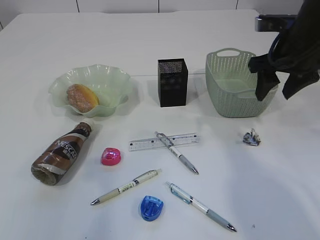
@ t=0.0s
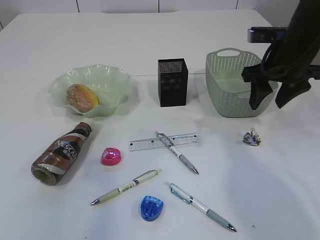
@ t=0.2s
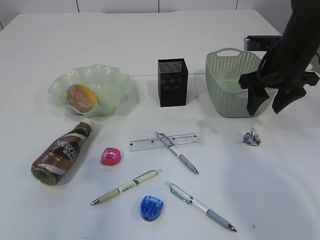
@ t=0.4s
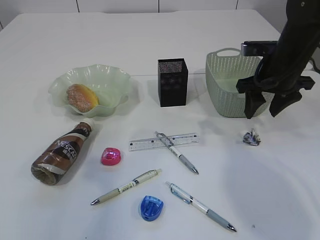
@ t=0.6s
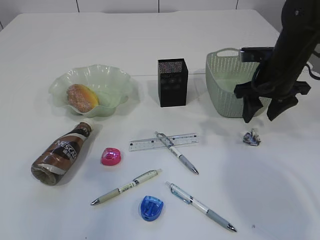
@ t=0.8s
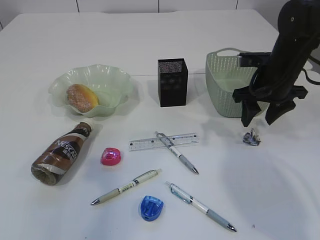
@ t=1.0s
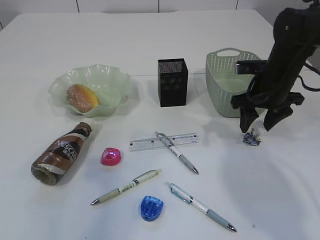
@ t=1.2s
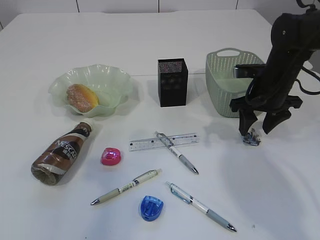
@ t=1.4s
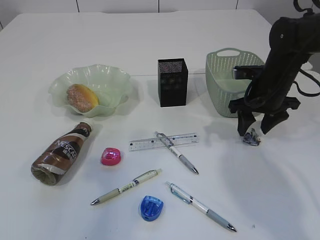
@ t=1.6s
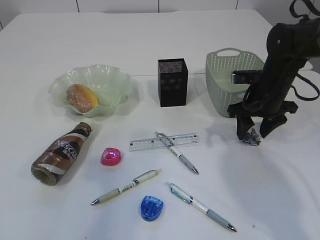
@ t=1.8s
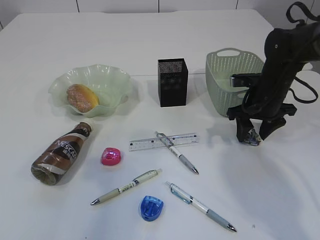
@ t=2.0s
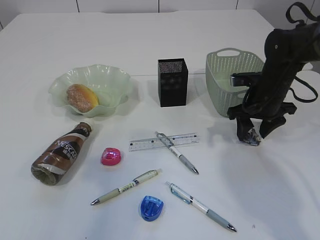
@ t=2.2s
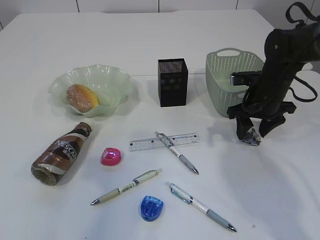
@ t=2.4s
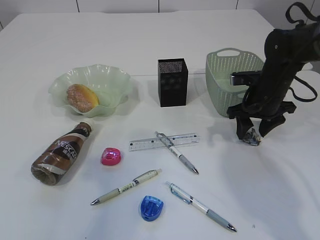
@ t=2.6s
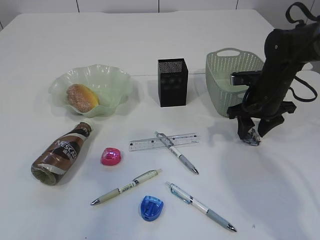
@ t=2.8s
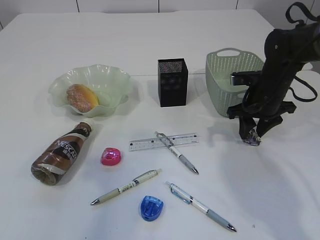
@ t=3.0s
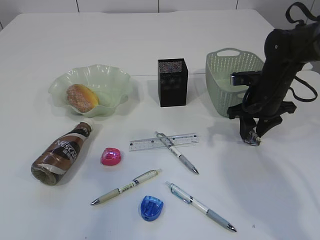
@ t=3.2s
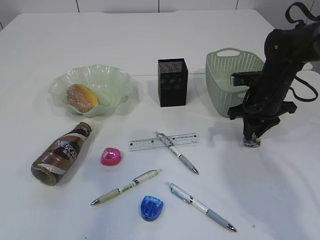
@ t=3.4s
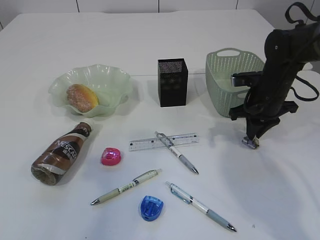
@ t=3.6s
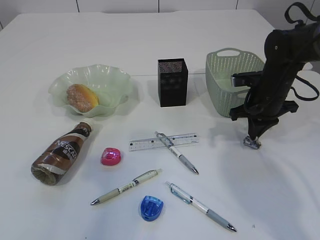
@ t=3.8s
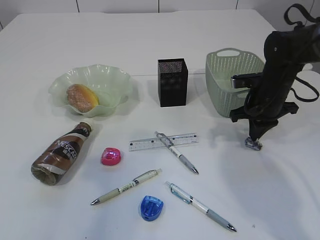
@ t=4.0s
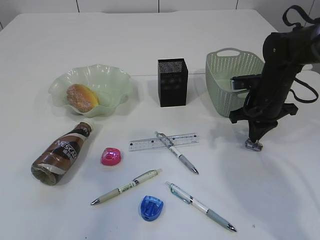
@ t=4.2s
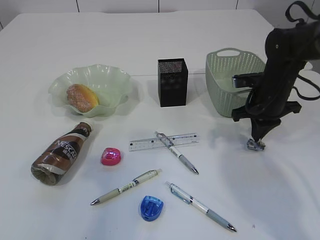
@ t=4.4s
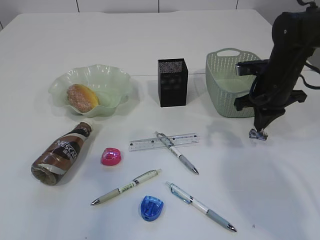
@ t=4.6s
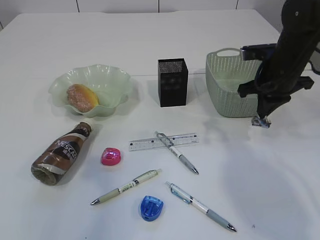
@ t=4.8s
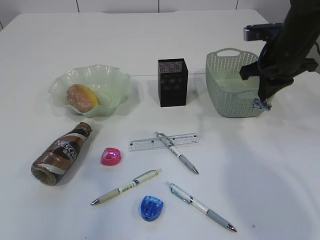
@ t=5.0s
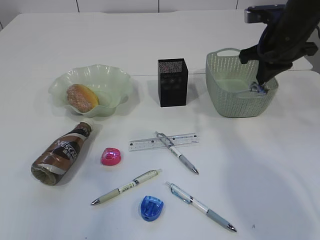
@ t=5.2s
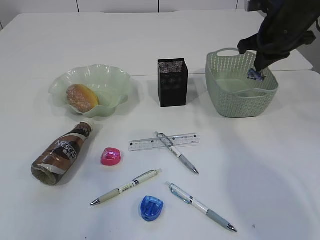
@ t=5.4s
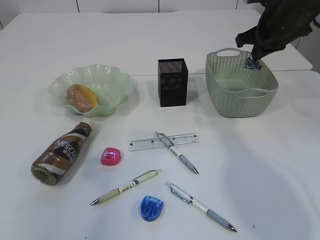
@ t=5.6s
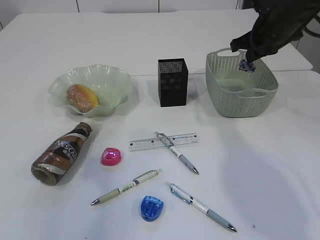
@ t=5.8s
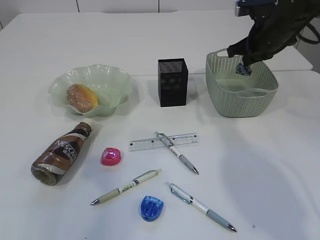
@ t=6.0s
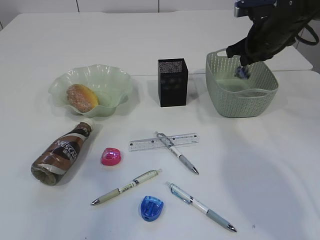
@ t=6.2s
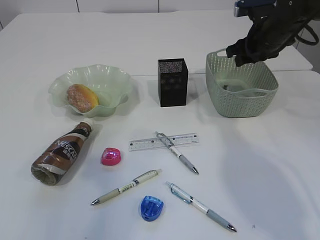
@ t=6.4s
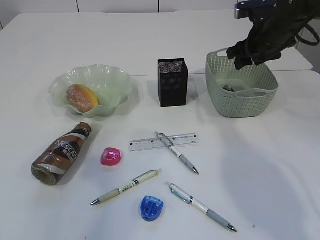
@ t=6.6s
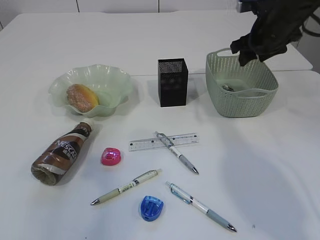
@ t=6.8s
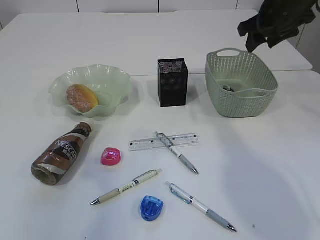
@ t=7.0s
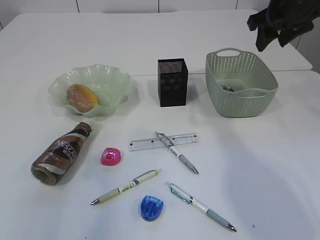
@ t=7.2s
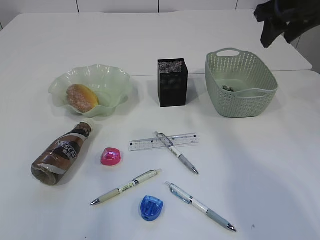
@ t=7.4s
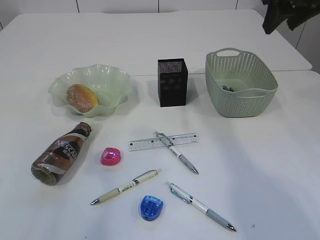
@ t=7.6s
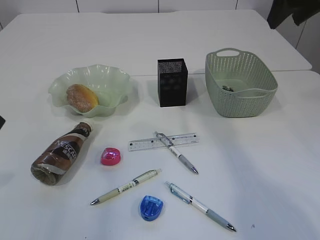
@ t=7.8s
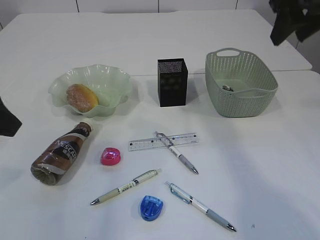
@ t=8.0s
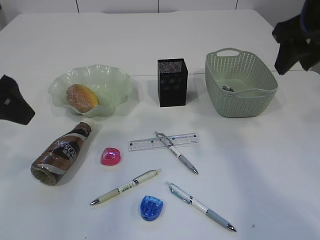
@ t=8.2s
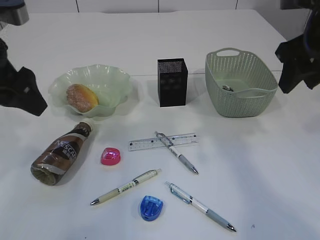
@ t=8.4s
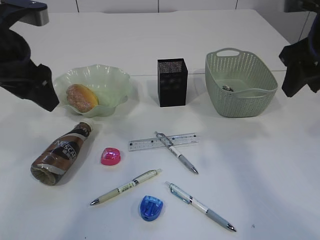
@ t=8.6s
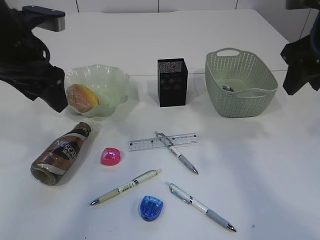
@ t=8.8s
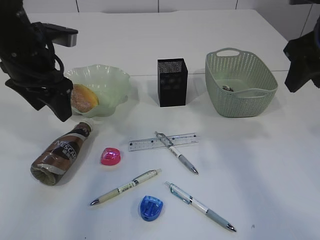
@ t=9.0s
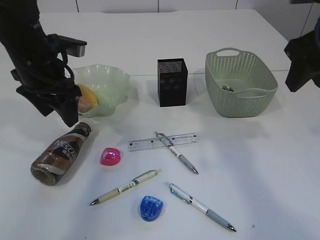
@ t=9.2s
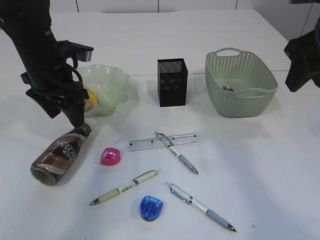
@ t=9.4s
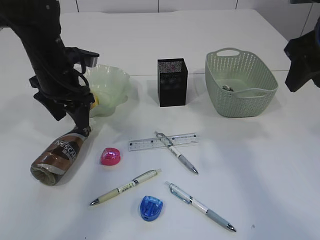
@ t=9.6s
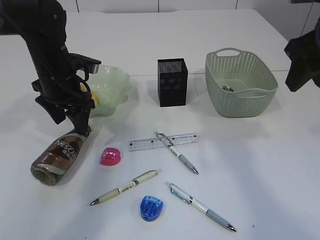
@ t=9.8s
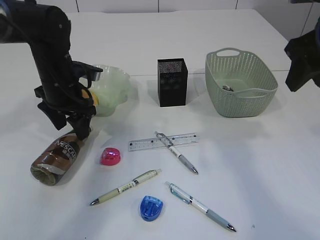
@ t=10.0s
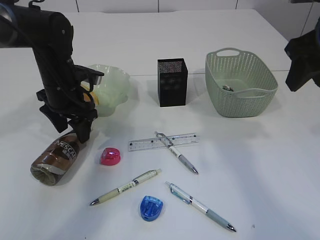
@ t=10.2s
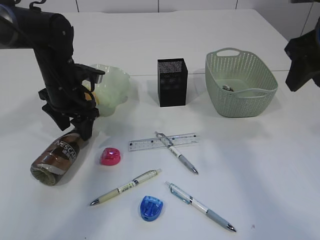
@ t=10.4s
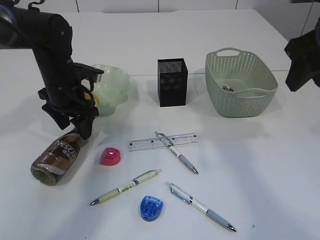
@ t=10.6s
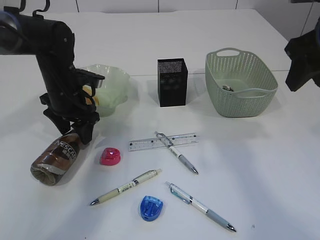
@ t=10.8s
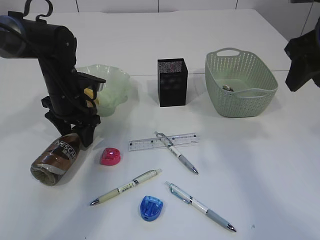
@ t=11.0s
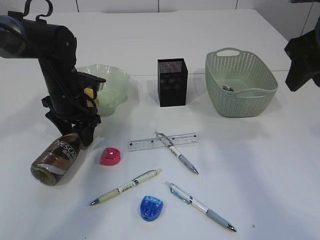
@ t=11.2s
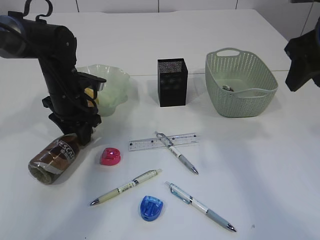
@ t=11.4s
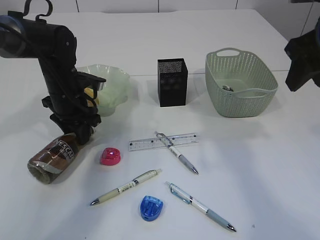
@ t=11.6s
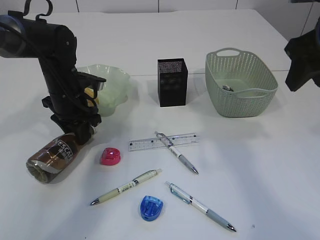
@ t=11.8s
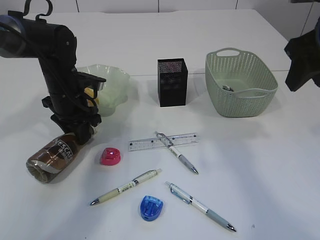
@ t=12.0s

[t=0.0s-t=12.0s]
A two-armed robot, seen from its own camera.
Step, t=0.0s to t=4.8s: Pick up the waste paper.
Step, t=5.0s to t=6.6s: Place the waste paper in the basket.
t=0.0s to t=1.6s: The right gripper heads downward, covering some 10 cm.
t=1.6s to t=3.0s: The grippers move only a little.
t=3.0s to t=4.4s: The right gripper closes its fingers.
t=4.4s to t=6.0s: The right gripper shifts roughly 10 cm upward and forward.
t=6.0s to t=7.6s: The right gripper goes roughly 15 cm upward and backward, and opens.
t=7.6s to t=9.0s: The right gripper is displaced backward by approximately 10 cm; the left gripper travels forward and downward by about 20 cm.
t=9.0s to t=10.4s: The left gripper is displaced downward and forward by roughly 10 cm.
t=10.4s to t=12.0s: The left gripper closes.

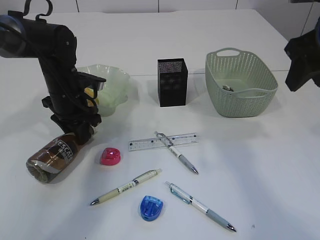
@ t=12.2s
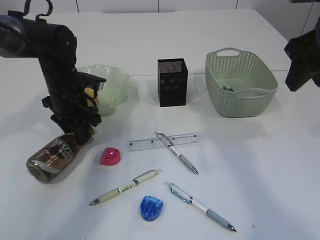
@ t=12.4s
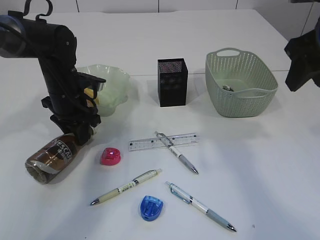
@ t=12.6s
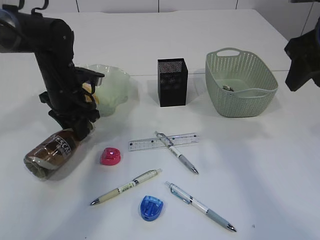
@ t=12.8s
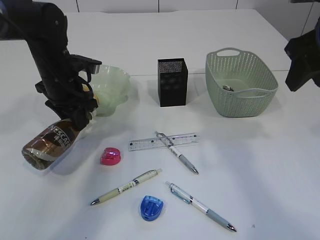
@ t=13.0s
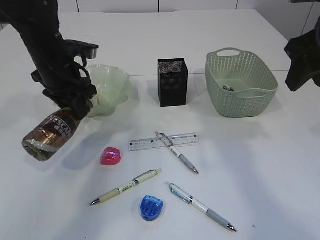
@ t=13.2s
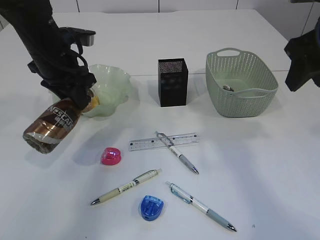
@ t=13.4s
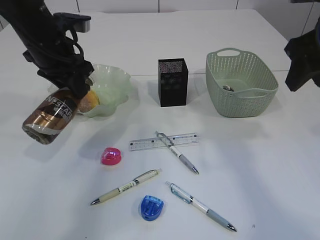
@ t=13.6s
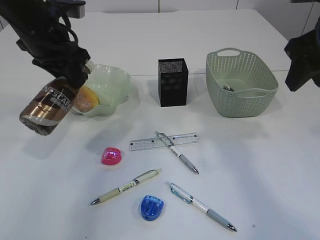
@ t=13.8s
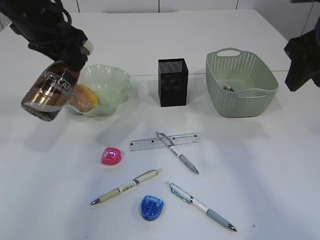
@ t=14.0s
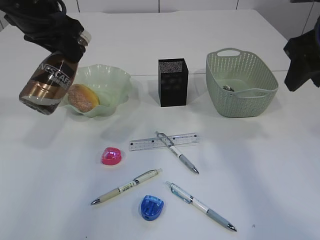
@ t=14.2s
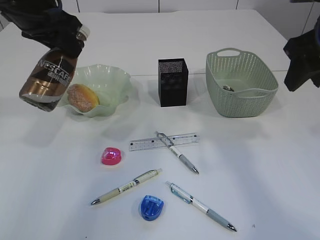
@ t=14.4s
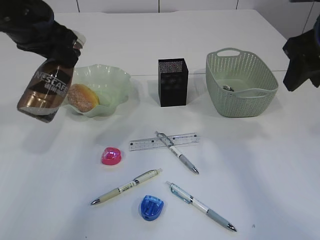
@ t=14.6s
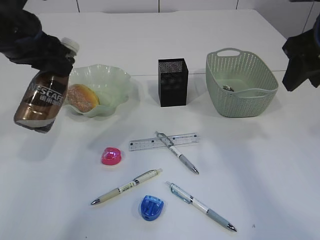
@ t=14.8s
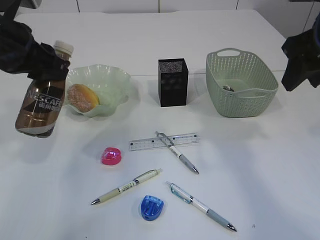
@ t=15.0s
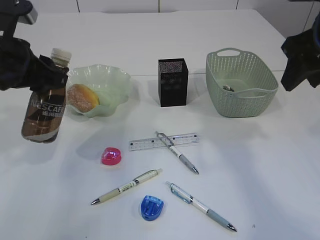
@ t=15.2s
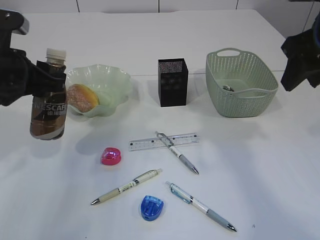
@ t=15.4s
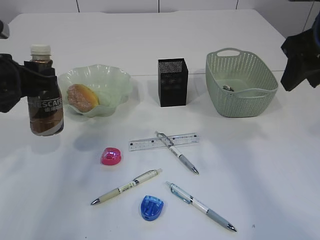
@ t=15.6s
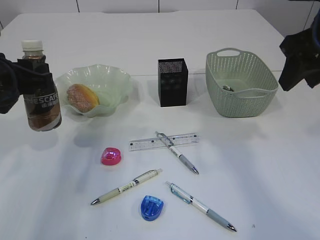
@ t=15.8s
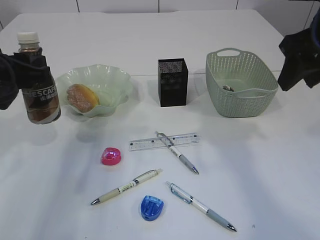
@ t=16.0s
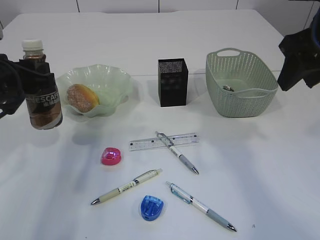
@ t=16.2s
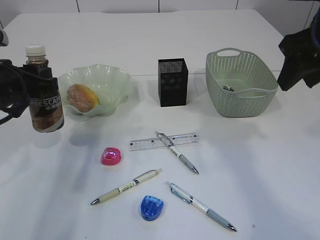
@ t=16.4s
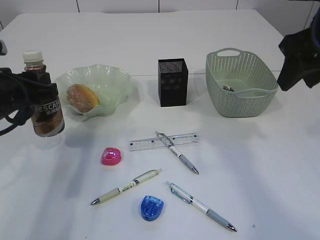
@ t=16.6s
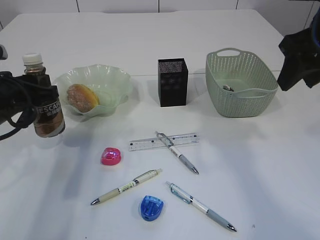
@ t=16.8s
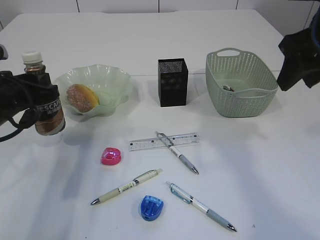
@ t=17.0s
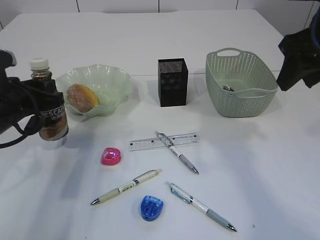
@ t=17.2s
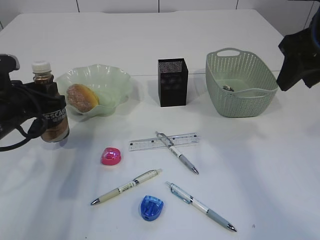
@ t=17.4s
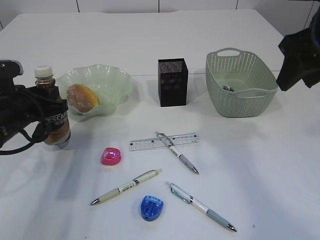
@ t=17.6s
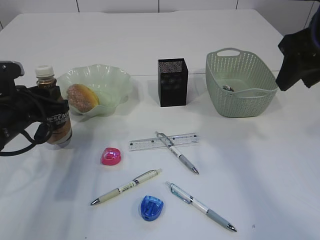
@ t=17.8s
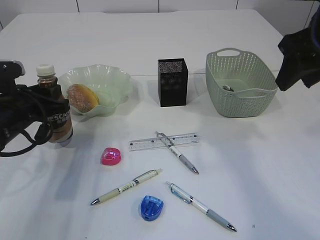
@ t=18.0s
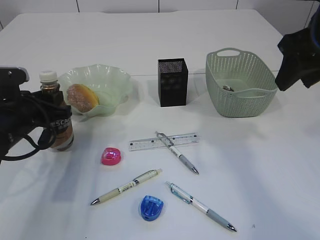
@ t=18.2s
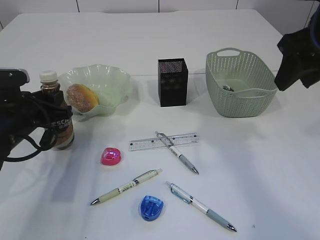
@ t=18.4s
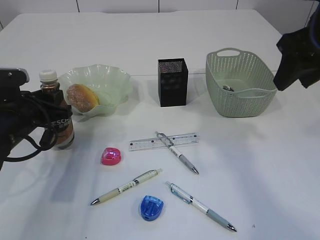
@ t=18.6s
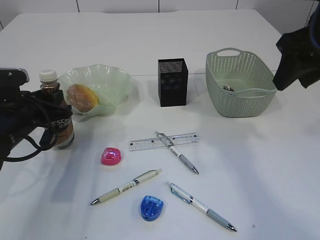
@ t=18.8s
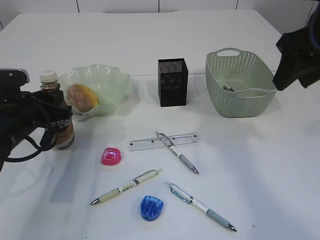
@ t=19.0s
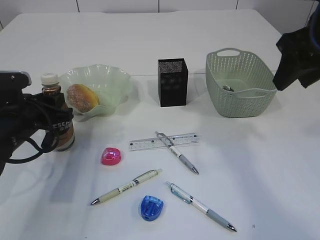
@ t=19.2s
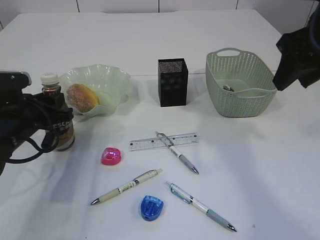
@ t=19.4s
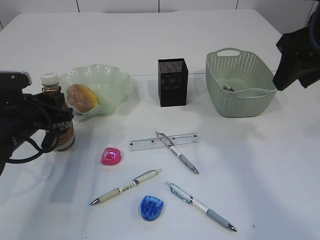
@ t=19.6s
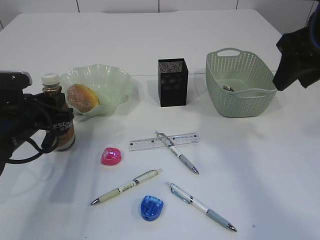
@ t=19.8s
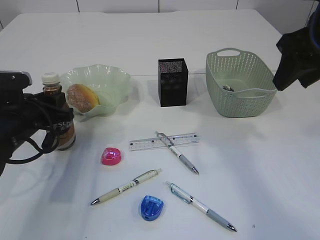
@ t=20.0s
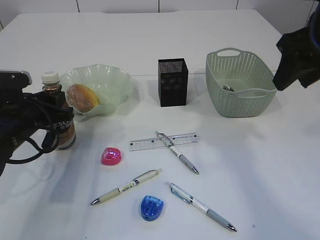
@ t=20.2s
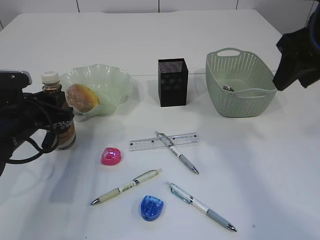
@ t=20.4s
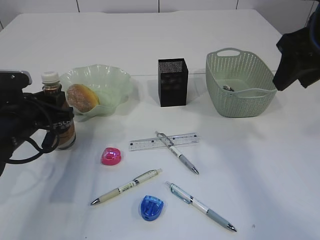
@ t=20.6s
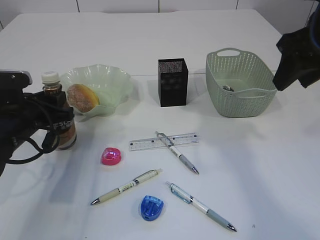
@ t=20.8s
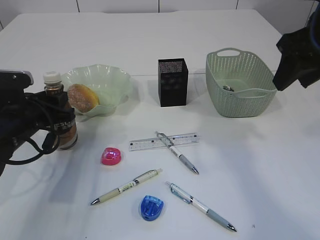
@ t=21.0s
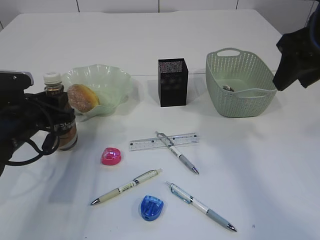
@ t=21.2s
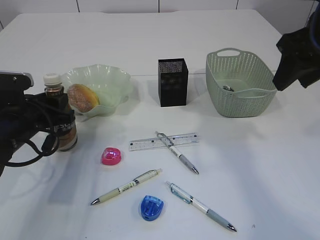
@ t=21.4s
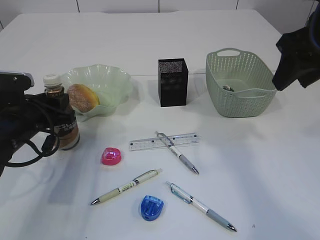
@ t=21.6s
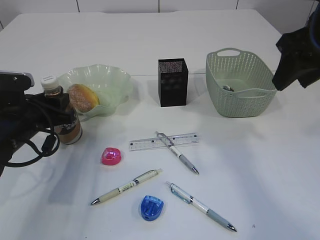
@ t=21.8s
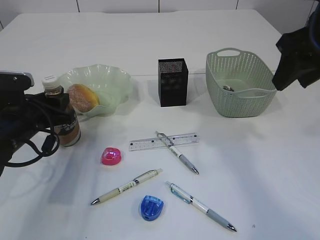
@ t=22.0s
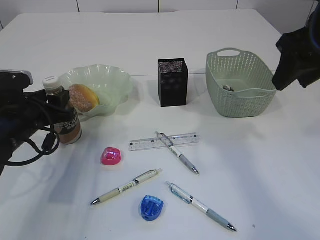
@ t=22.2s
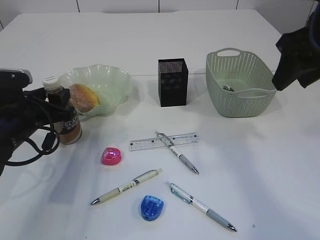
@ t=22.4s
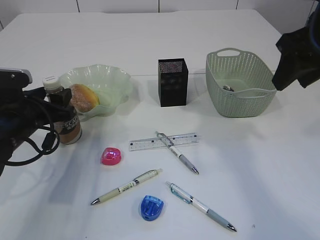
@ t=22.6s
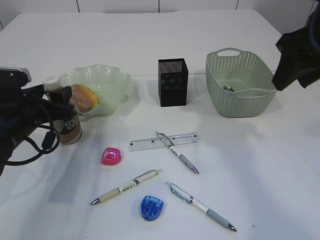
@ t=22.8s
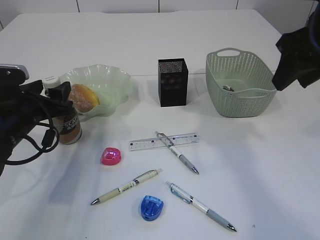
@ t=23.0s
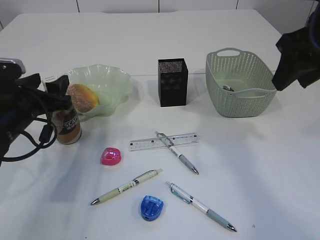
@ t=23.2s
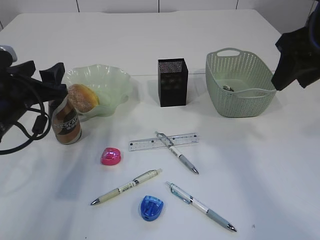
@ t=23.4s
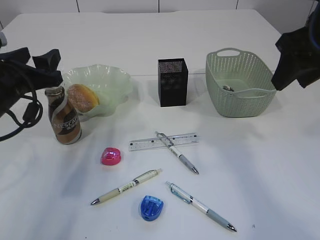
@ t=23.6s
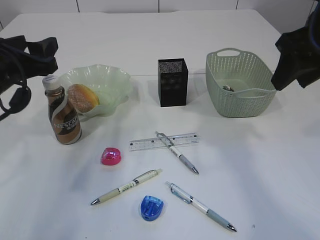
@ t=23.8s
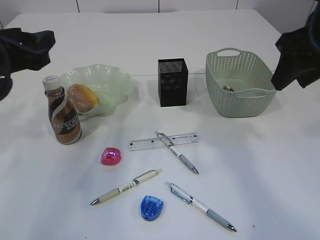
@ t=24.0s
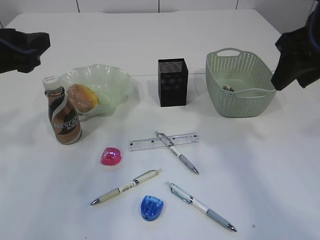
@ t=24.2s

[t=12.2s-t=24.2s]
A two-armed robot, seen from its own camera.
t=12.2s to t=13.8s: The left gripper moves upward, about 15 cm.
t=13.8s to t=15.2s: The left gripper heads backward, covering about 10 cm.
t=15.2s to t=16.6s: The left gripper moves downward, approximately 5 cm.
t=16.6s to t=18.2s: The left gripper heads downward, covering about 5 cm.
t=18.2s to t=21.2s: The two grippers keep their place.
t=21.2s to t=22.6s: The left gripper opens up.
t=22.6s to t=24.2s: The left gripper shifts about 15 cm upward.
